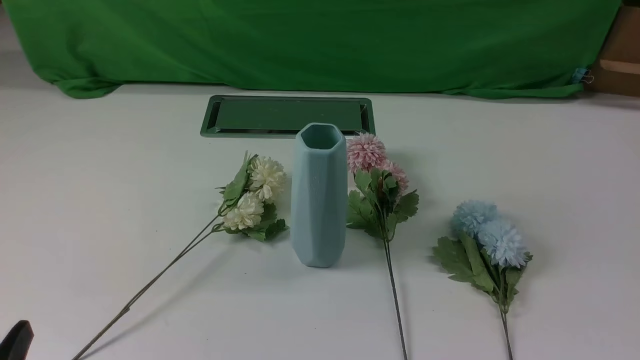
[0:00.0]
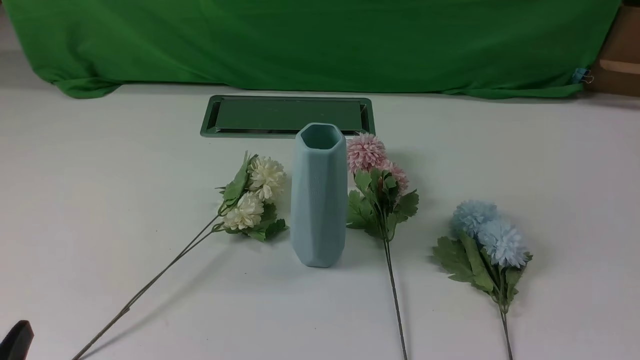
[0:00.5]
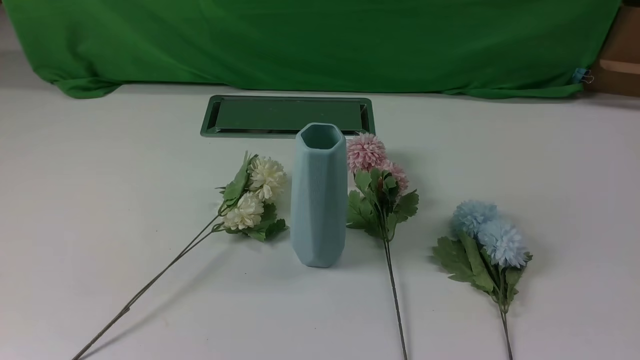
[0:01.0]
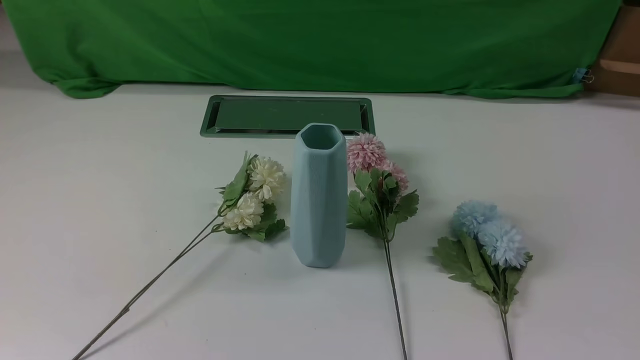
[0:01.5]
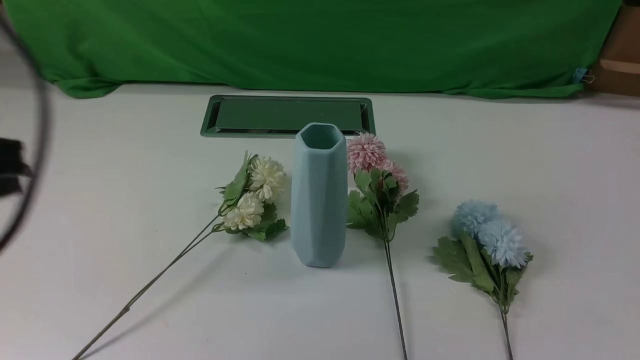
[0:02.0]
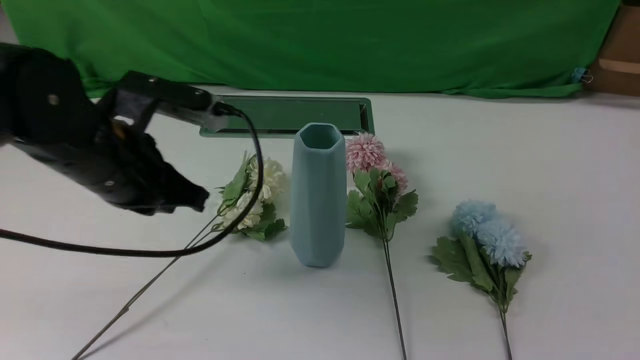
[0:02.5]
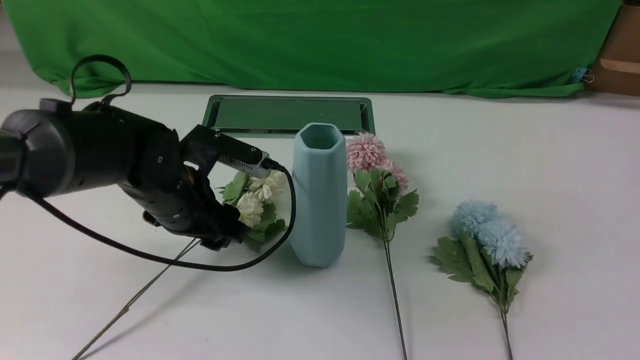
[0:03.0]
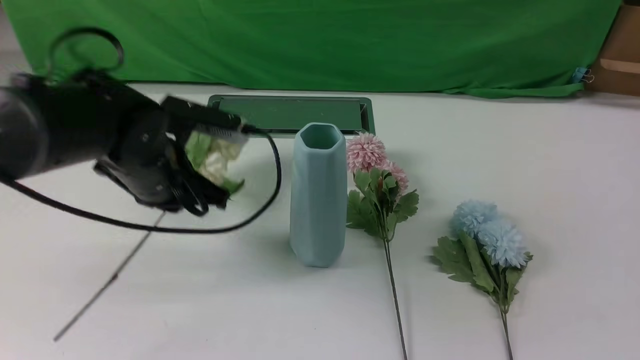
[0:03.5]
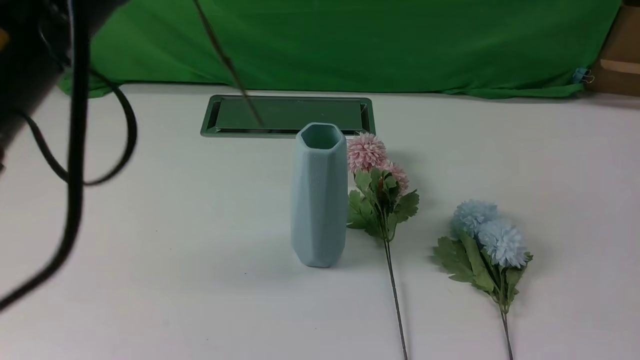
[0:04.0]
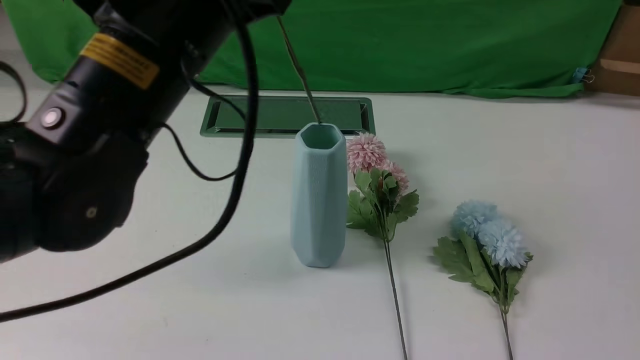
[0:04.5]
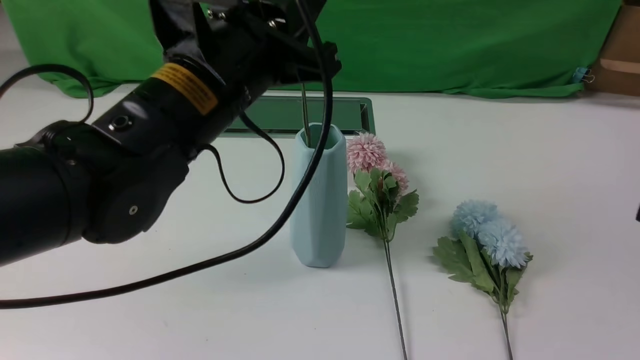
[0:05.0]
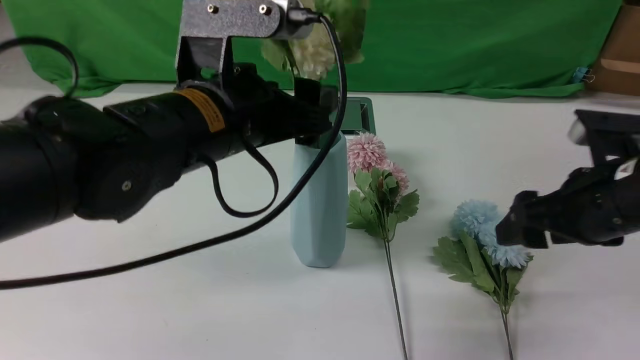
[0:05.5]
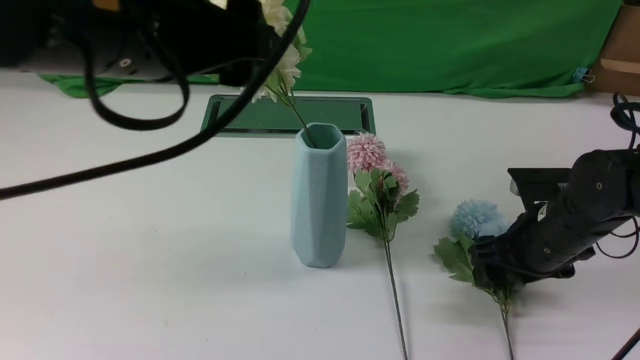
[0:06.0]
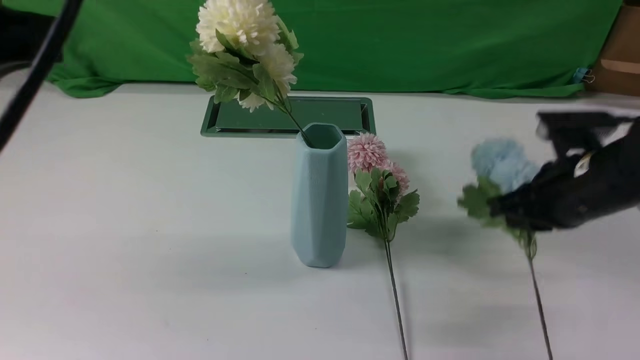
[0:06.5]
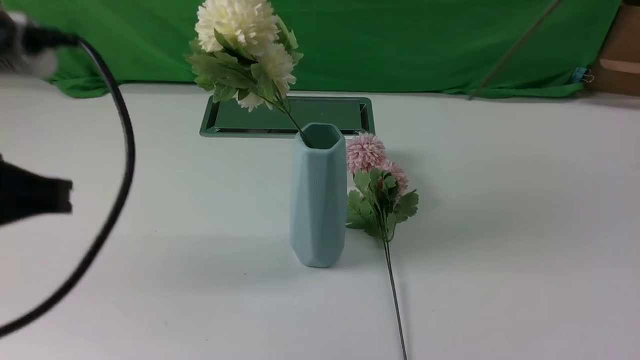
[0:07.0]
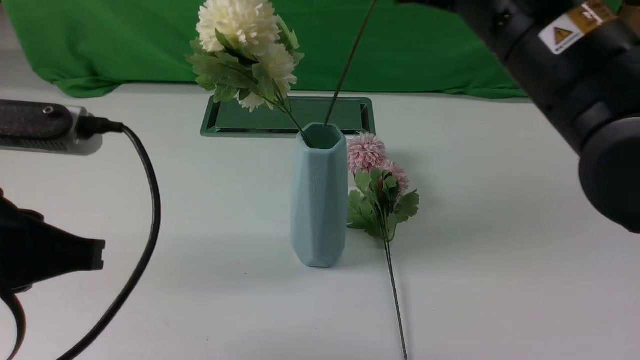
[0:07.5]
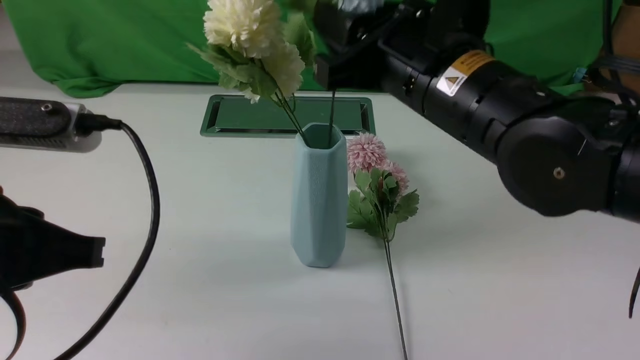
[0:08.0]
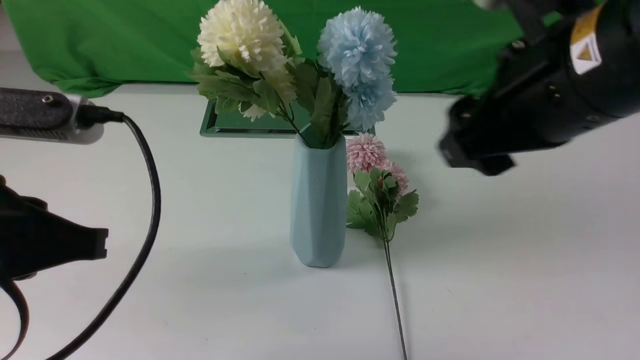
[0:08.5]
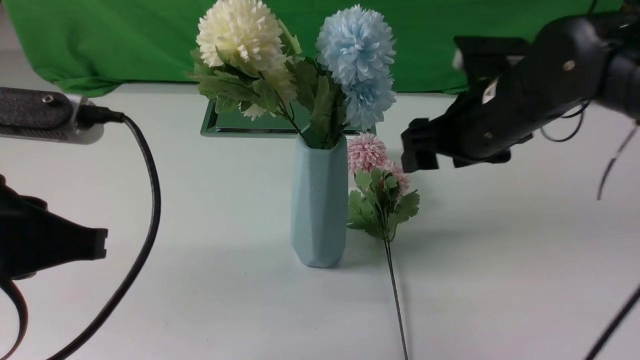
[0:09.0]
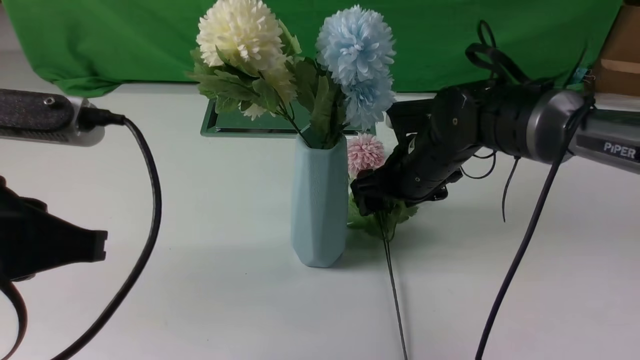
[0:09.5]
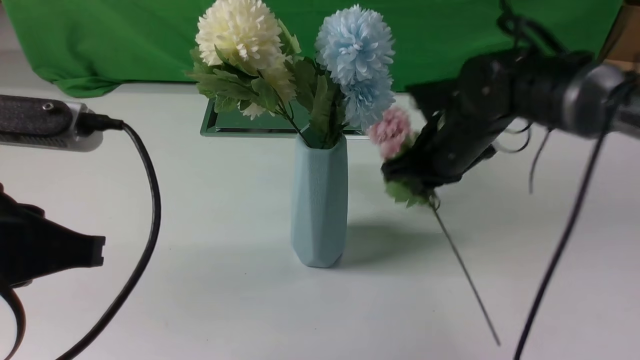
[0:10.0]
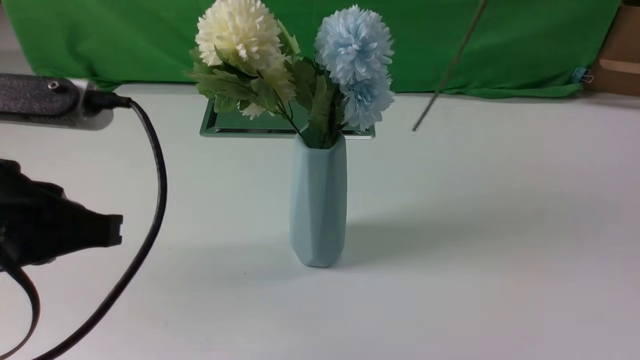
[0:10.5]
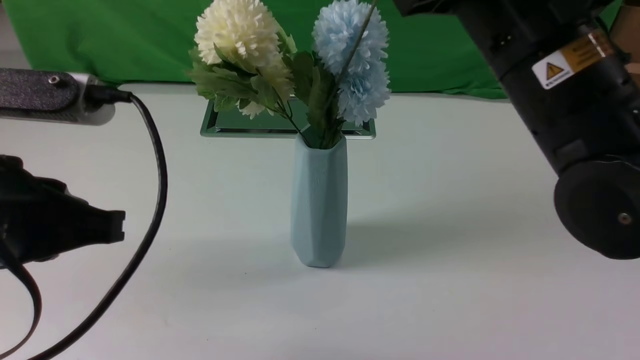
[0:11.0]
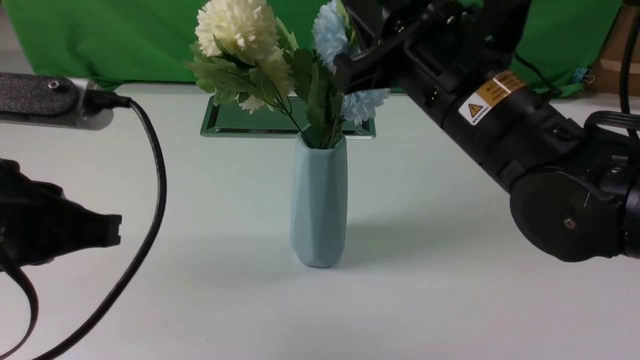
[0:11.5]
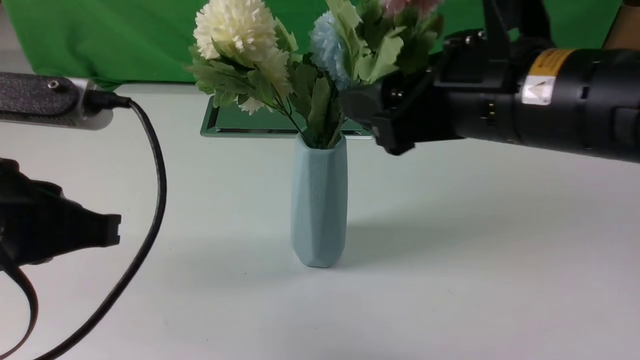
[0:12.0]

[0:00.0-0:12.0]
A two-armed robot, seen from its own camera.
Task of the whole recording: insert the flowers into the vase on the white table.
Step, 0:00.0 to 0:03.0: use the left arm to grab a bunch of fresh flowers.
Step, 0:03.5 to 0:05.5: use the left arm to insert the flowers into the vase.
Step, 0:06.5 to 0:08.0: use the right arm to insert the flowers into the vase.
Step, 0:08.5 to 0:09.5: use the right arm to grab a bunch of fresh flowers.
Step, 0:10.0 to 0:12.0: use the right arm to insert the flowers into the vase.
0:00.0 to 0:02.0: The left gripper goes about 20 cm upward and forward, and closes.
0:02.0 to 0:04.0: The right gripper goes approximately 10 cm upward and forward; the left gripper moves to the right and forward, roughly 10 cm, reaches approximately 20 cm downward, then returns, and opens, then closes once more.
0:04.0 to 0:06.0: The right gripper moves forward and downward, approximately 25 cm. The left gripper moves roughly 10 cm downward and comes back, and opens its fingers.
0:06.0 to 0:08.0: The right gripper travels upward and to the left by some 25 cm, and closes and opens again. The left gripper shifts some 15 cm downward, backward and to the left, and closes up.
0:08.0 to 0:10.0: The right gripper heads forward, downward and to the right, covering about 15 cm, and closes its fingers.
0:10.0 to 0:12.0: The right gripper moves backward and upward, roughly 20 cm, and opens.

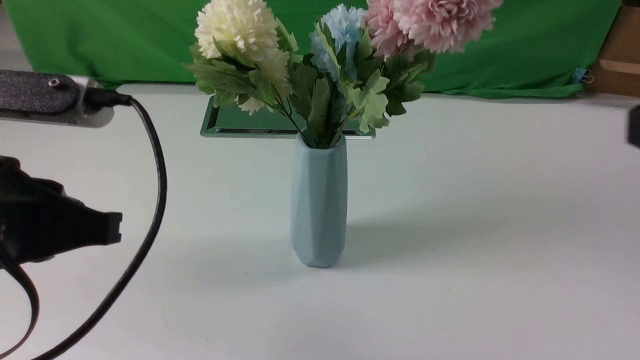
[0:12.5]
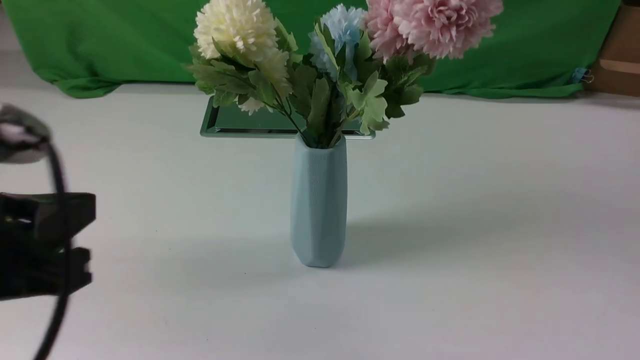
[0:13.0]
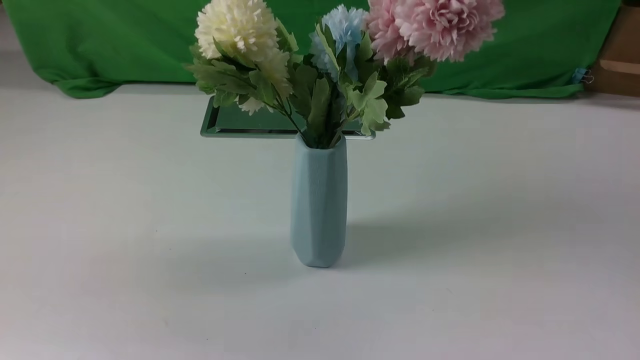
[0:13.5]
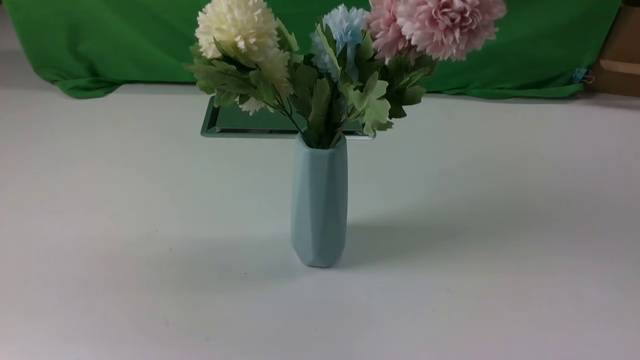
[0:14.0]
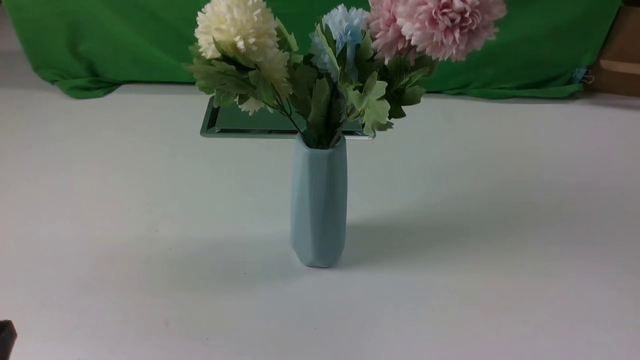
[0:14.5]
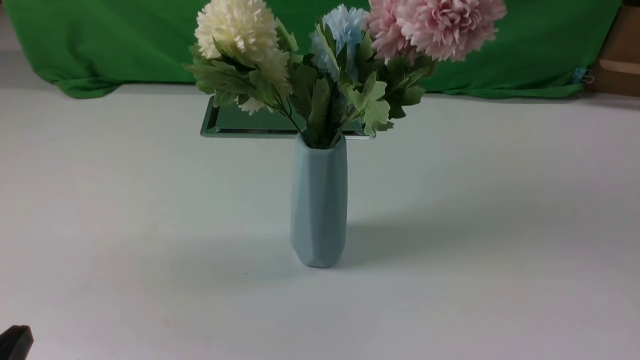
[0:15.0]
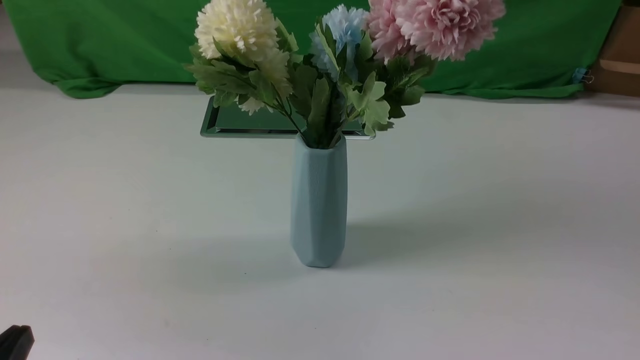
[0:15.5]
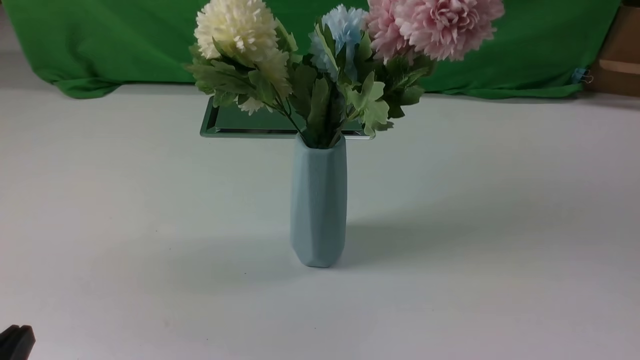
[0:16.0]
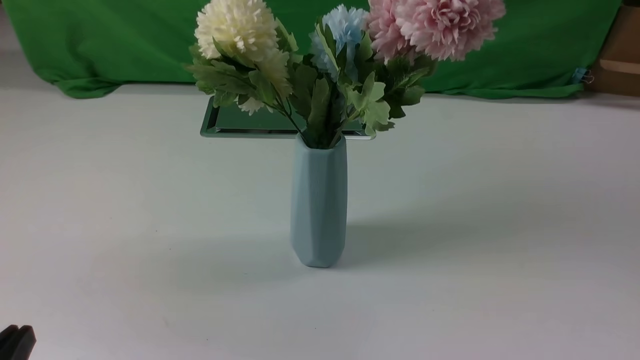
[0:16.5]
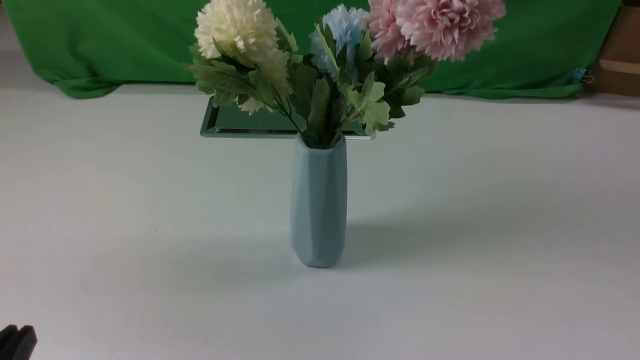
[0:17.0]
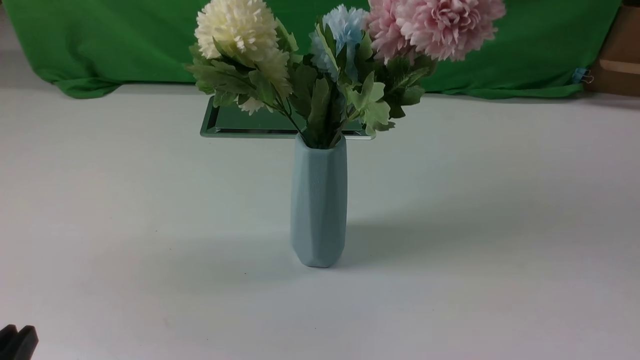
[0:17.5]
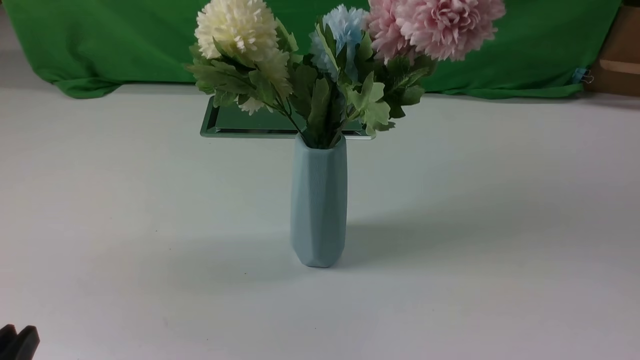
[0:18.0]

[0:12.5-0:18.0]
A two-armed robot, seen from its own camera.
Task of the whole recording: insert the flowers into the vase on the white table.
0:12.5 to 0:14.5: The left gripper moves downward, backward and to the left, about 20 cm. Meanwhile the right gripper is displaced downward and backward by about 10 cm.
